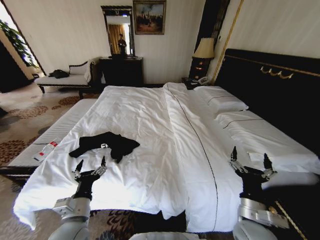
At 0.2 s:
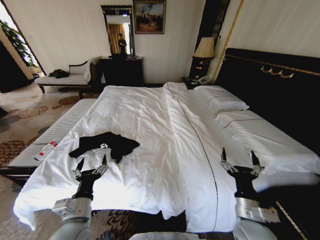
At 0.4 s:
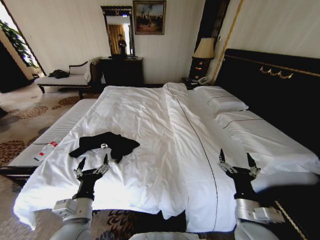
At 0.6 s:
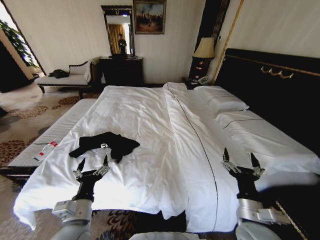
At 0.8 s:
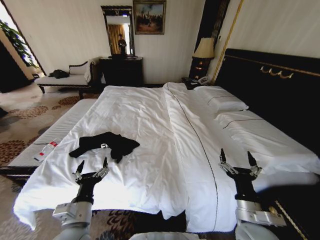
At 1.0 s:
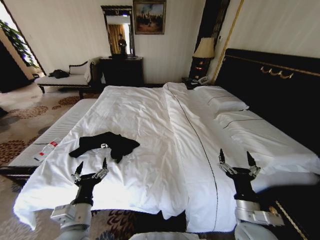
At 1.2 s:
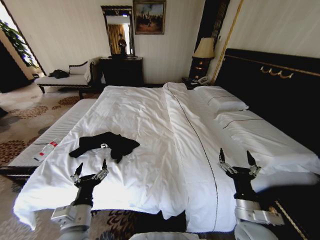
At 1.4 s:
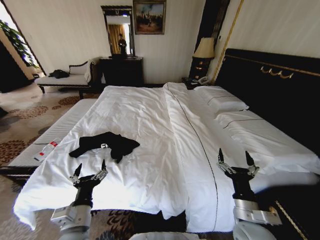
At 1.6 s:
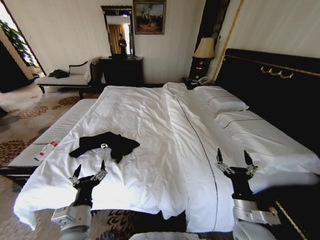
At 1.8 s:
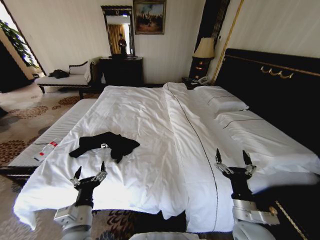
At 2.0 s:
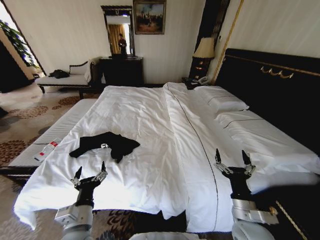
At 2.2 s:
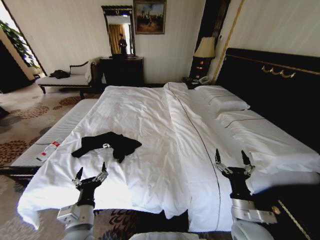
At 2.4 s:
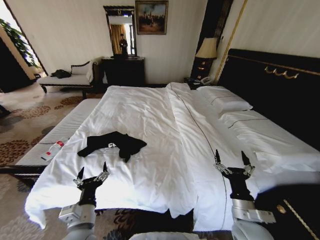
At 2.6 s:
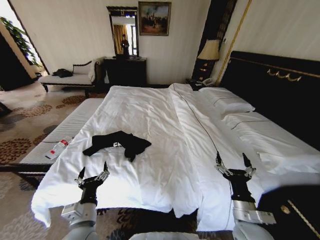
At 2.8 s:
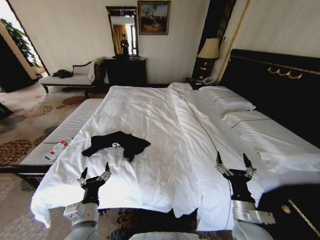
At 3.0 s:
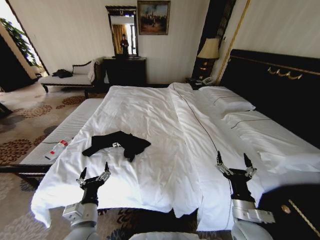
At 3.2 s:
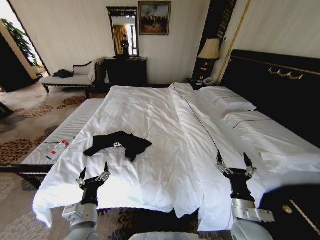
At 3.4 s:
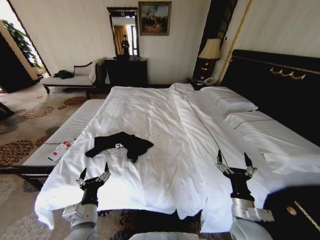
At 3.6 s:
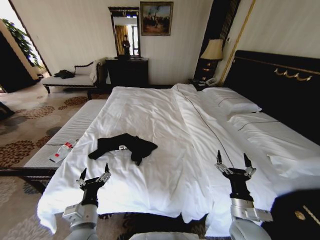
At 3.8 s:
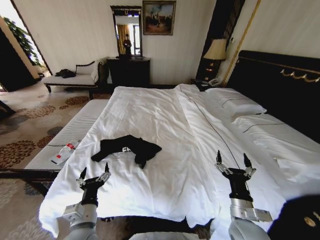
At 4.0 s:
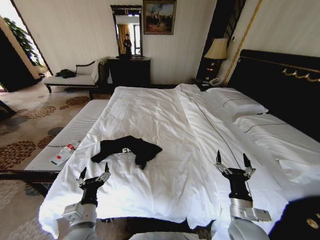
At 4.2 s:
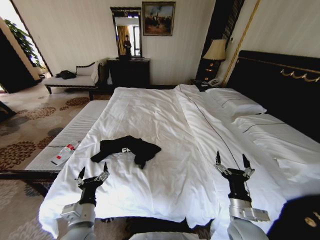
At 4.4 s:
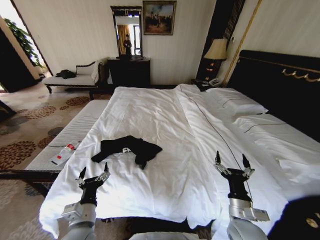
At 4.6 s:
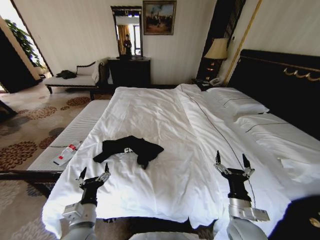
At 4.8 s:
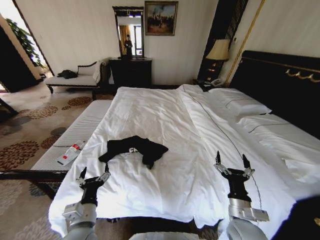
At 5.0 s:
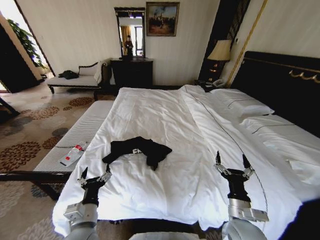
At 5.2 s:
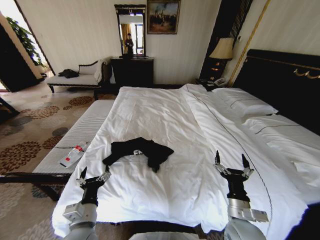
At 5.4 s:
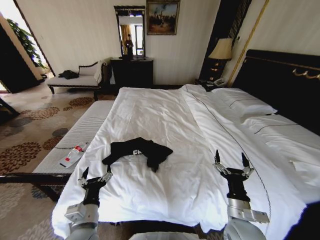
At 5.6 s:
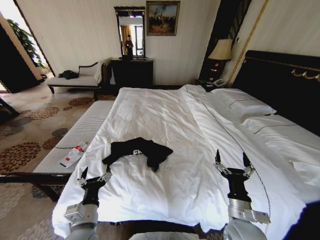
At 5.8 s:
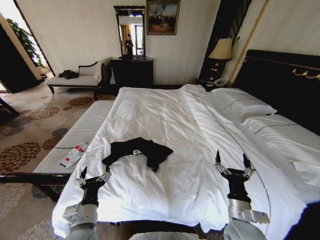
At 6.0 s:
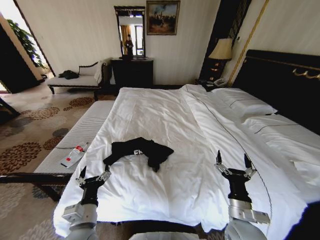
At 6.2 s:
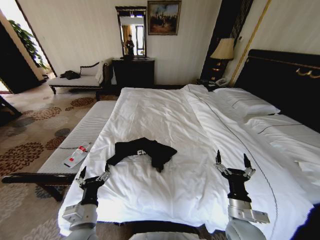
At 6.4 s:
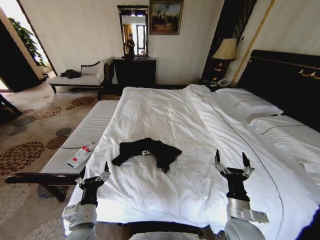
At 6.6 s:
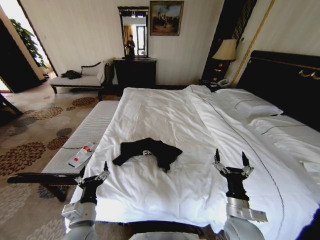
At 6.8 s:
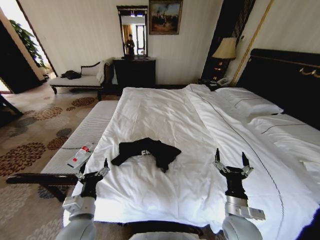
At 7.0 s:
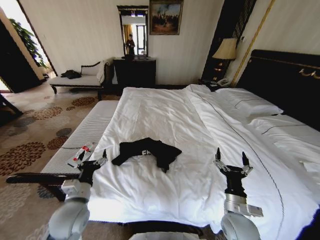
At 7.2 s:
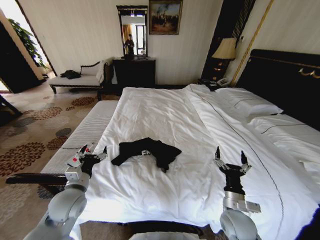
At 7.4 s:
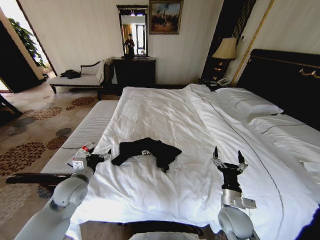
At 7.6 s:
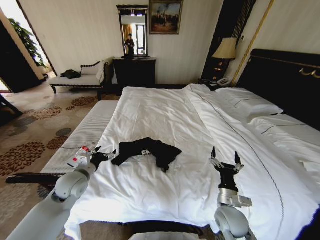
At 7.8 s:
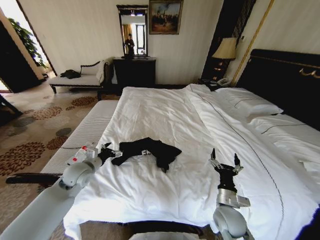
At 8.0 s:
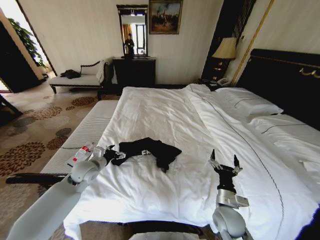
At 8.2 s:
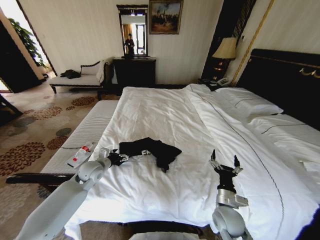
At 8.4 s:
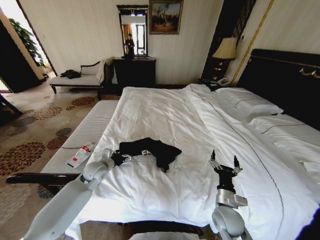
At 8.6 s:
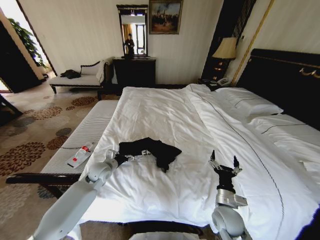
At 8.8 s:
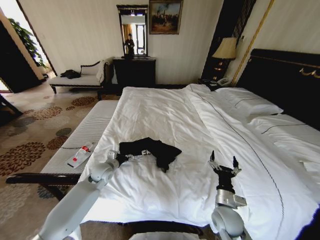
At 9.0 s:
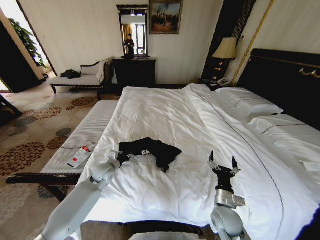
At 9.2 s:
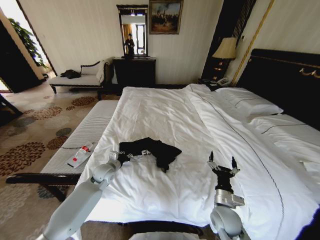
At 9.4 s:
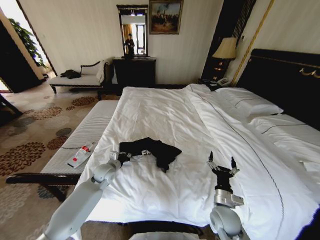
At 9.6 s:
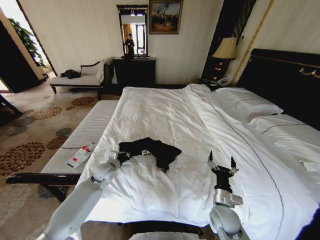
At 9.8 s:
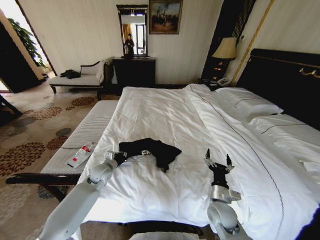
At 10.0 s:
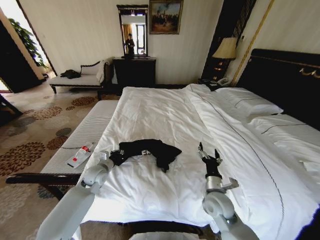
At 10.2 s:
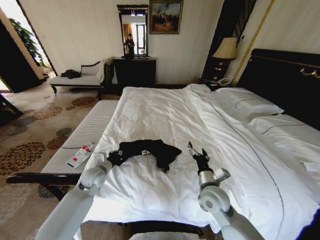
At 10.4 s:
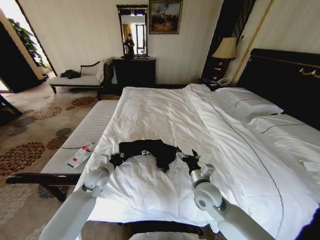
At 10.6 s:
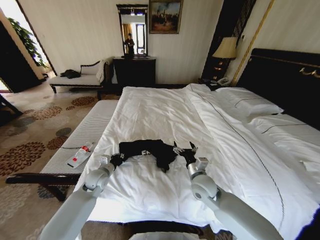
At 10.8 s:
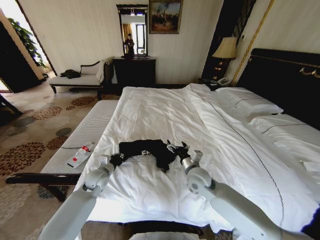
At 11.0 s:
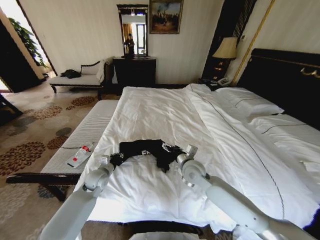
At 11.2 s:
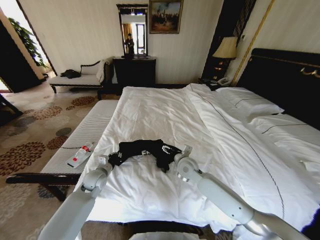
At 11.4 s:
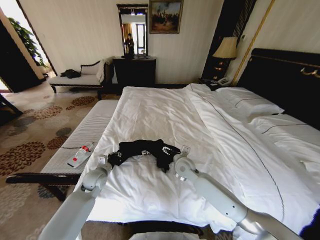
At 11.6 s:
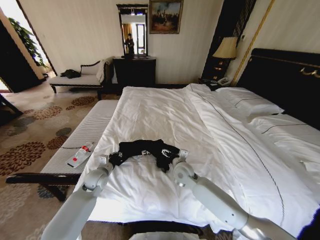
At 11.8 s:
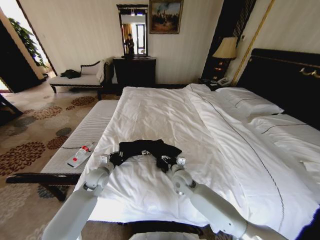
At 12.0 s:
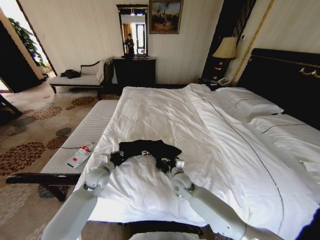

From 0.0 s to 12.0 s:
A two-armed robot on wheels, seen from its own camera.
Task of the whole recording: Fold the clothes on the bed.
From 0.0 s to 1.6 s: The grippers move only a little.
From 6.0 s to 7.6 s: The left gripper moves forward and to the left, roughly 20 cm; the right gripper moves about 5 cm.
From 7.6 s to 9.0 s: The left gripper shifts some 15 cm forward, downward and to the right, and closes its fingers.
From 9.0 s to 10.4 s: The right gripper is displaced upward, to the left and forward by about 10 cm, while the left gripper closes its fingers.
From 10.4 s to 12.0 s: The right gripper travels forward, downward and to the left by roughly 15 cm.

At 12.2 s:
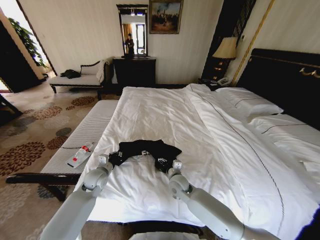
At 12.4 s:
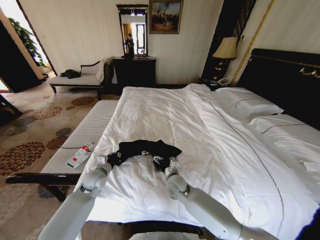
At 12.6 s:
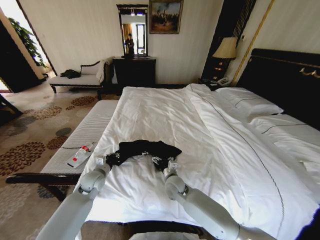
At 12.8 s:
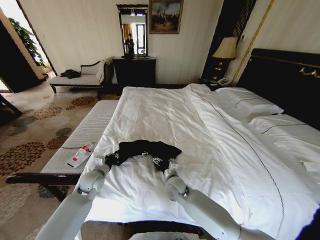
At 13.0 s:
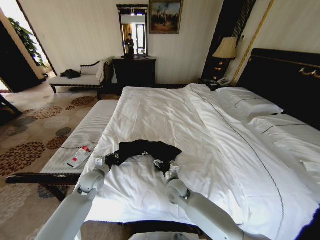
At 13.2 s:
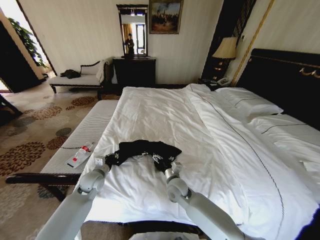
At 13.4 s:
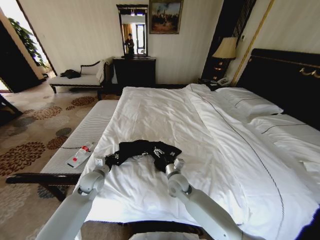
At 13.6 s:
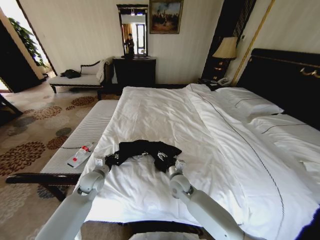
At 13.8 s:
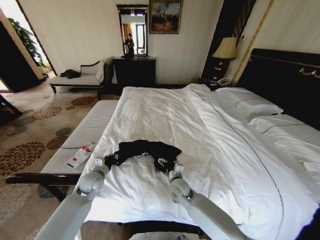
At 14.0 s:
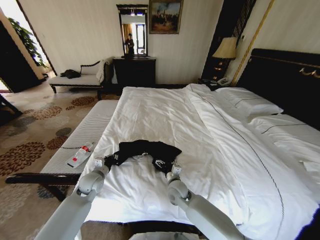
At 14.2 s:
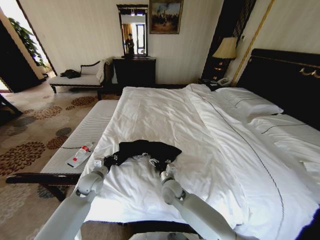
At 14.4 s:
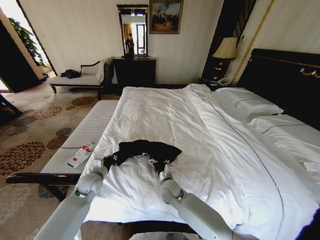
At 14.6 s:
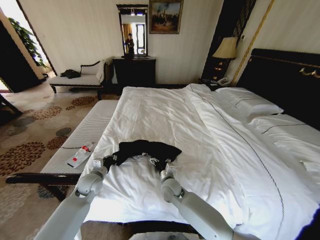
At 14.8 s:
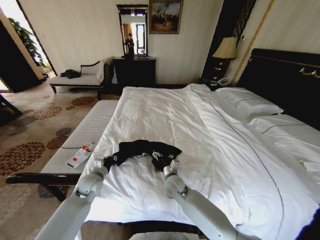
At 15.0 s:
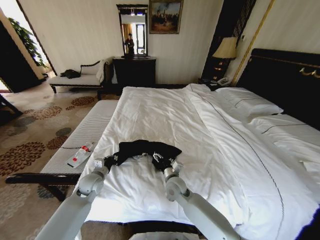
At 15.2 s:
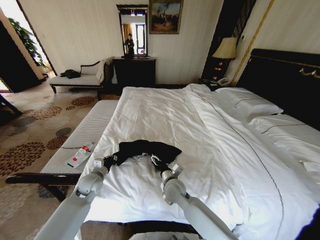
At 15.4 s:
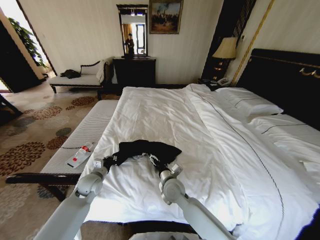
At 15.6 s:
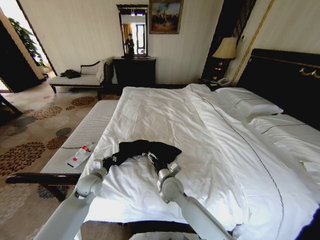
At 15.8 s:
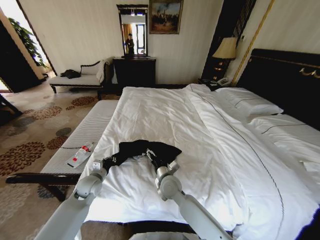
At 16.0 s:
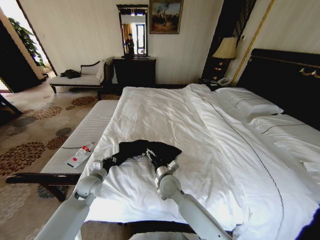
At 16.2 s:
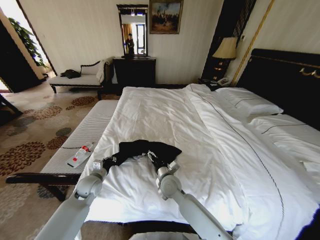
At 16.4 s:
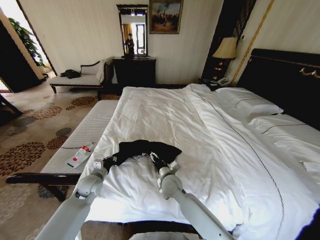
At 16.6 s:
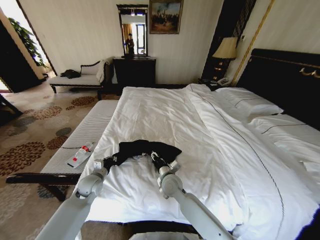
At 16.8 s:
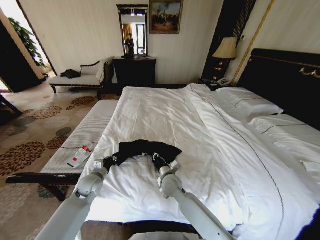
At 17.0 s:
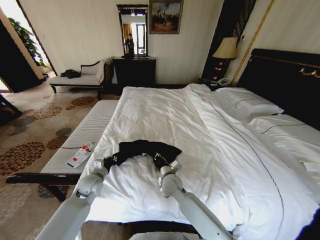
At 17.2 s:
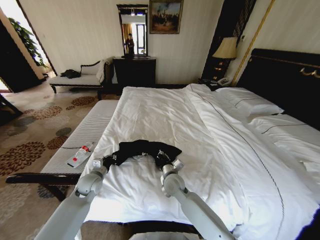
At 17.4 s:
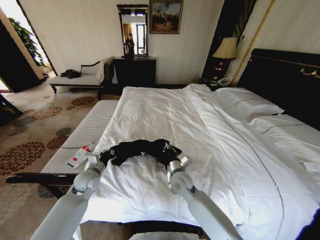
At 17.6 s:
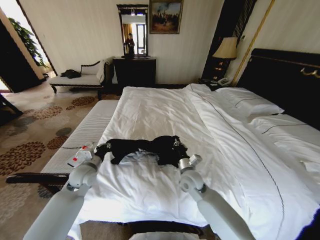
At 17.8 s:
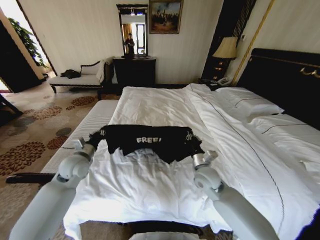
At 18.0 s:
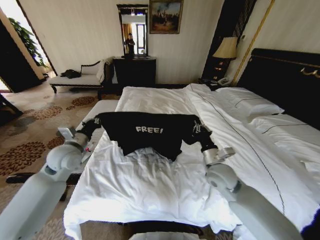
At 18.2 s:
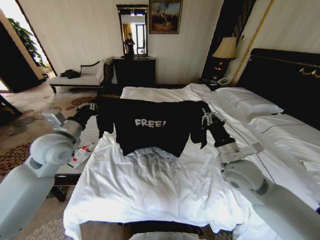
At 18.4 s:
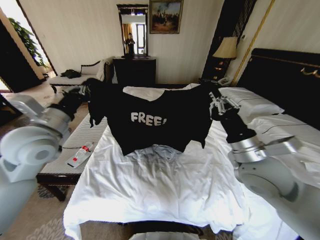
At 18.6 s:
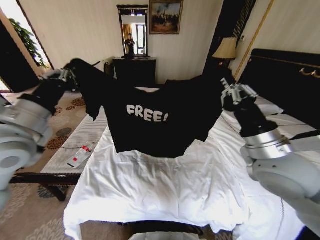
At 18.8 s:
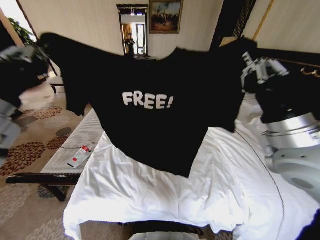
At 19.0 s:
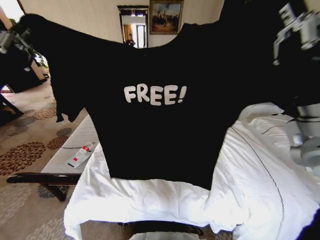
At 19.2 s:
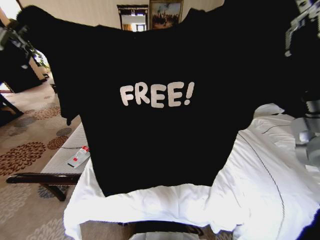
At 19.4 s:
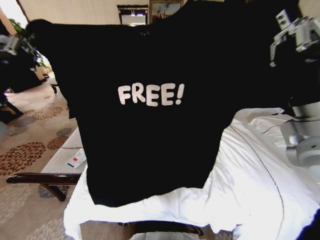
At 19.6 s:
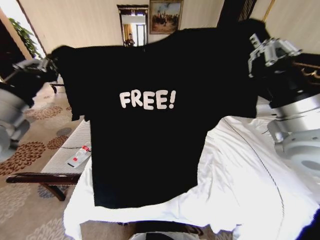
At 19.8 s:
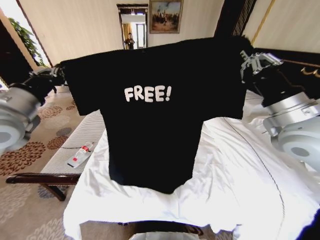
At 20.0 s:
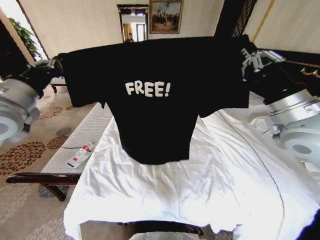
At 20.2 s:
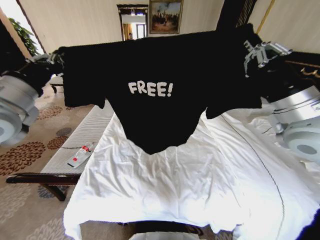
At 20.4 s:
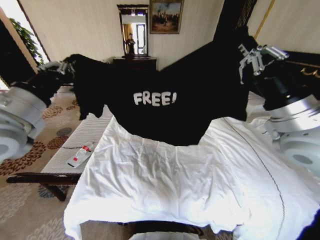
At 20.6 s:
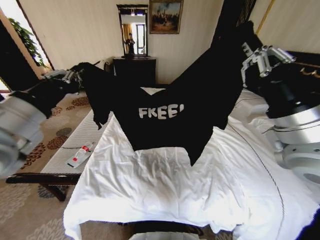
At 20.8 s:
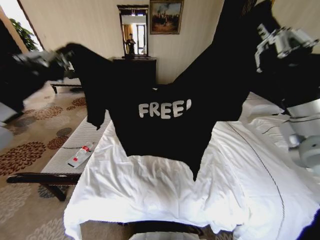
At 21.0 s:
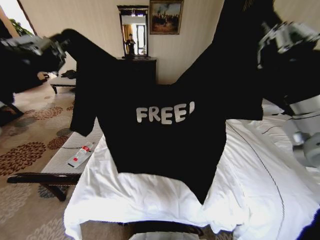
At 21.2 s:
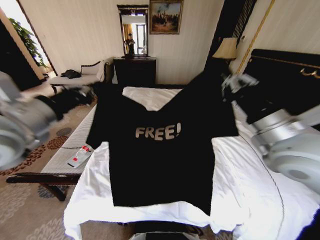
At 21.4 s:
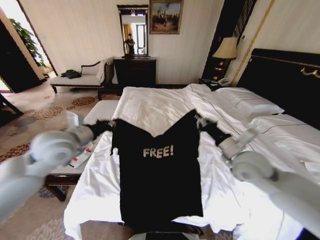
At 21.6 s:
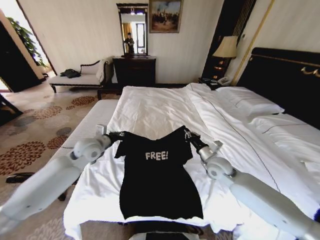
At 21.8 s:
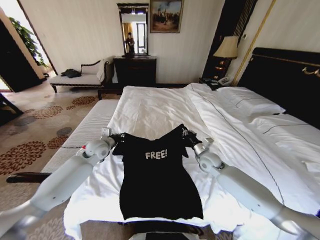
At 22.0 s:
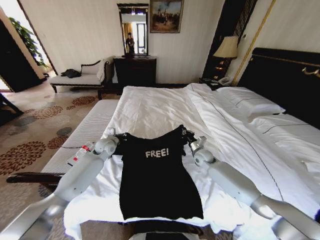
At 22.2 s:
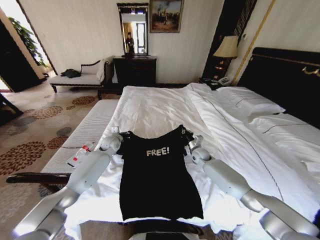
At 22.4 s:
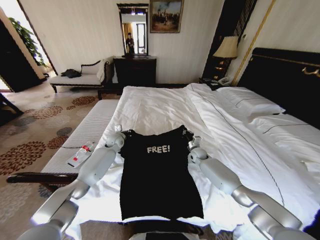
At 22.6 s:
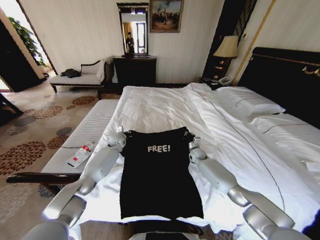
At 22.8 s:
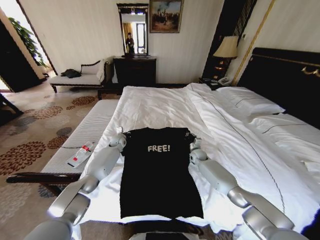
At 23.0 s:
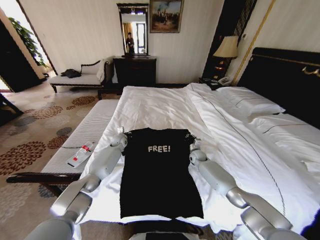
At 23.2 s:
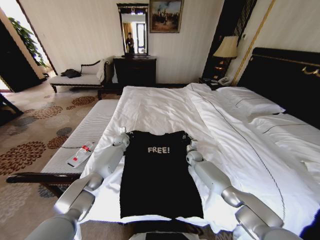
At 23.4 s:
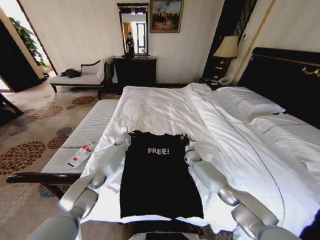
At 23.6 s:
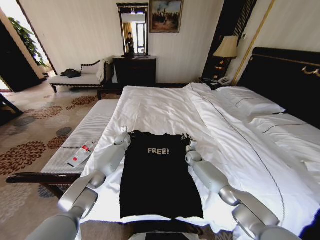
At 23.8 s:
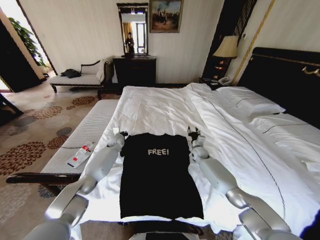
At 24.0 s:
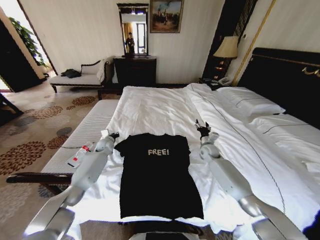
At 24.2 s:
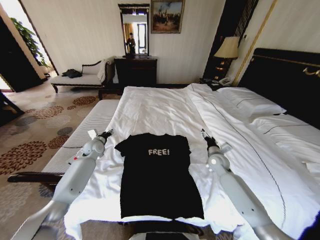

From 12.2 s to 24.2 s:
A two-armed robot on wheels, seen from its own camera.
Task of the whole recording: Fold the clothes on the bed.
From 15.2 s to 16.6 s: The right gripper closes its fingers.
From 16.6 s to 18.2 s: The right gripper goes about 25 cm to the right and upward, and closes. The left gripper shifts approximately 25 cm upward.
From 18.2 s to 19.8 s: Both grippers move upward, about 15 cm.
From 19.8 s to 21.2 s: The left gripper is displaced to the right and backward by some 10 cm; the right gripper changes place by approximately 5 cm.
From 21.2 s to 22.6 s: Both grippers travel together downward and forward, approximately 50 cm.
From 22.6 s to 24.2 s: The left gripper travels to the left and backward by about 15 cm, and opens. The right gripper heads backward, upward and to the right, covering roughly 15 cm, and opens up.
